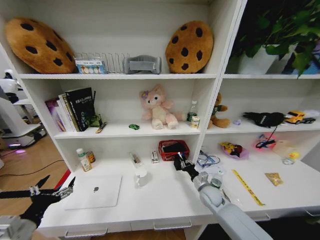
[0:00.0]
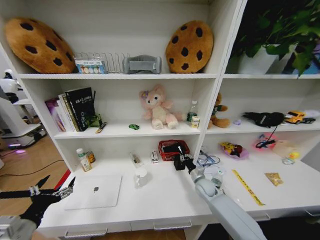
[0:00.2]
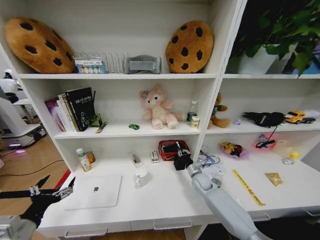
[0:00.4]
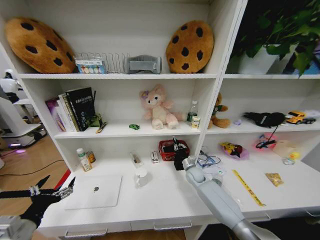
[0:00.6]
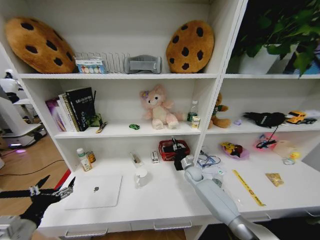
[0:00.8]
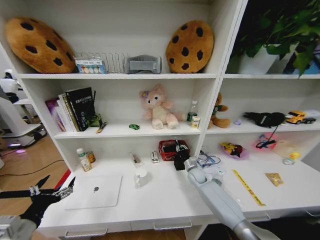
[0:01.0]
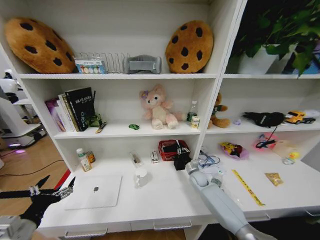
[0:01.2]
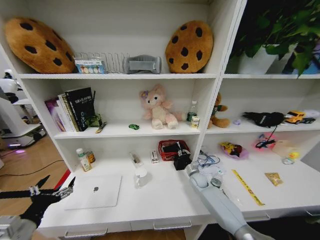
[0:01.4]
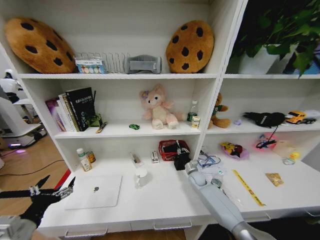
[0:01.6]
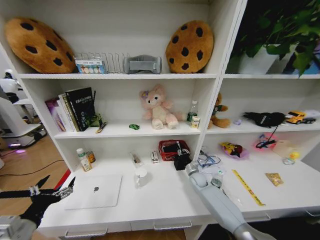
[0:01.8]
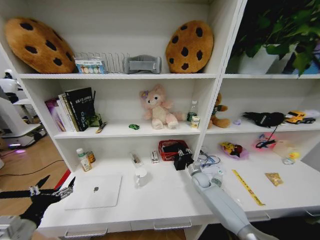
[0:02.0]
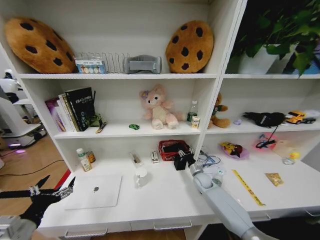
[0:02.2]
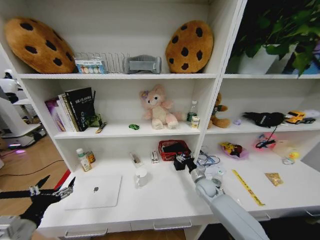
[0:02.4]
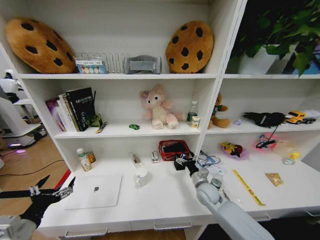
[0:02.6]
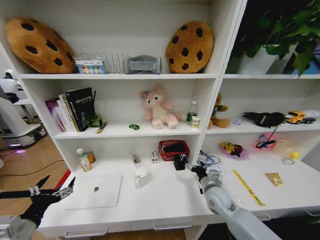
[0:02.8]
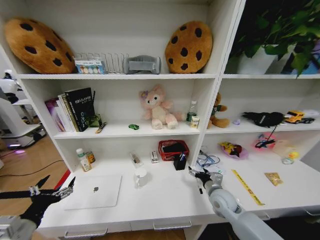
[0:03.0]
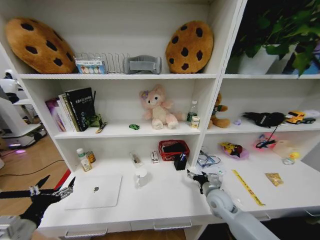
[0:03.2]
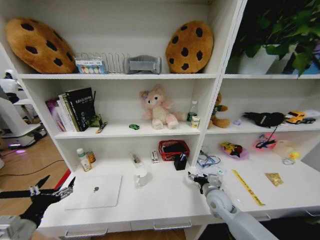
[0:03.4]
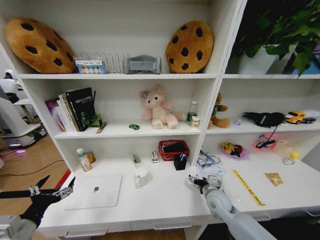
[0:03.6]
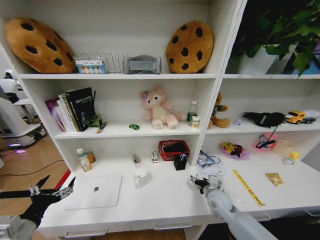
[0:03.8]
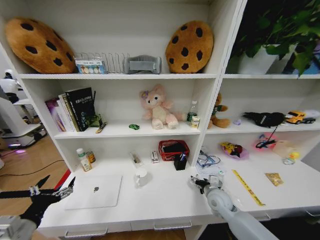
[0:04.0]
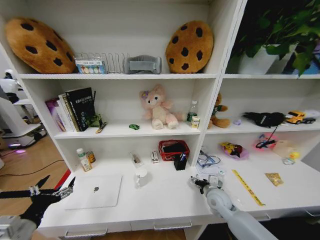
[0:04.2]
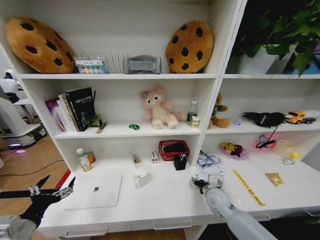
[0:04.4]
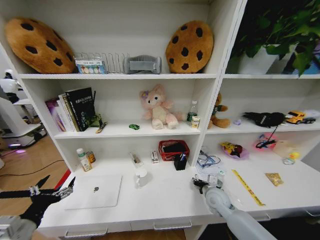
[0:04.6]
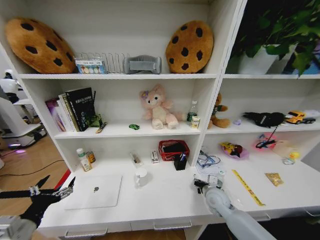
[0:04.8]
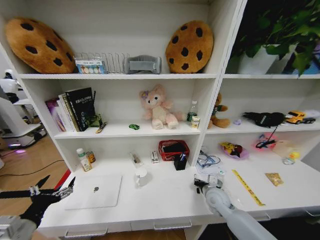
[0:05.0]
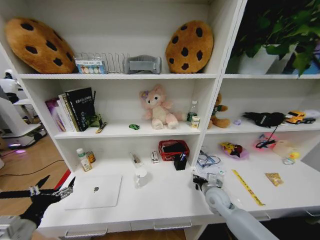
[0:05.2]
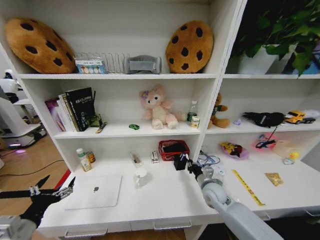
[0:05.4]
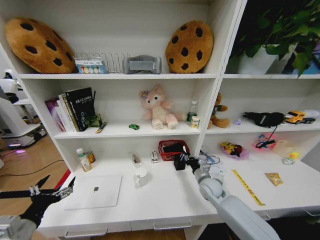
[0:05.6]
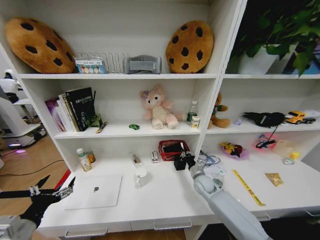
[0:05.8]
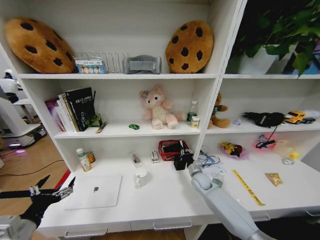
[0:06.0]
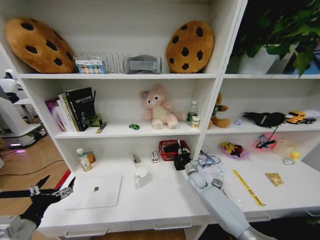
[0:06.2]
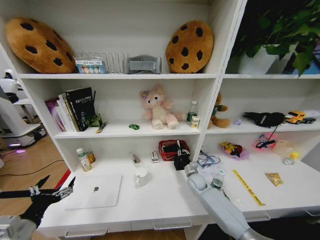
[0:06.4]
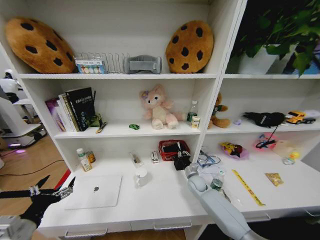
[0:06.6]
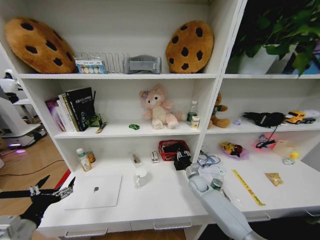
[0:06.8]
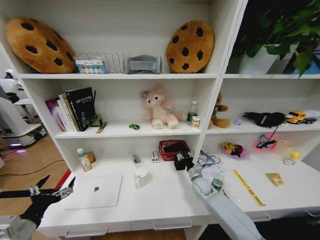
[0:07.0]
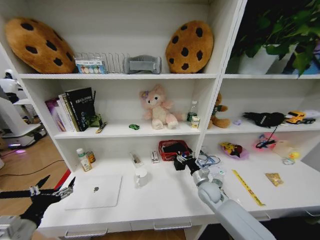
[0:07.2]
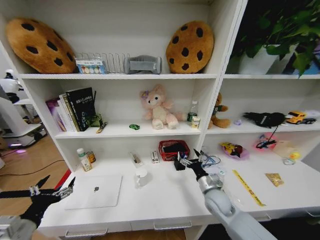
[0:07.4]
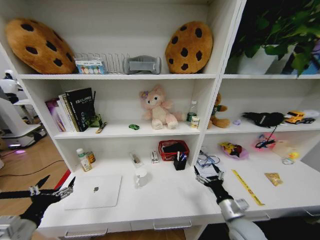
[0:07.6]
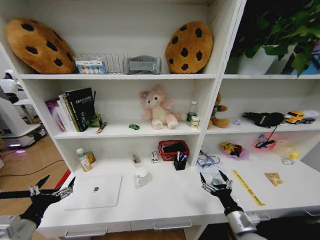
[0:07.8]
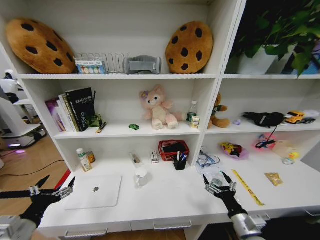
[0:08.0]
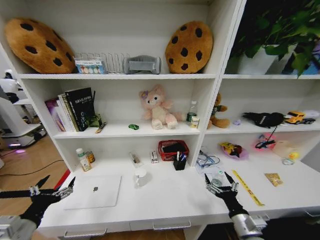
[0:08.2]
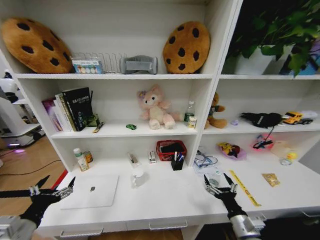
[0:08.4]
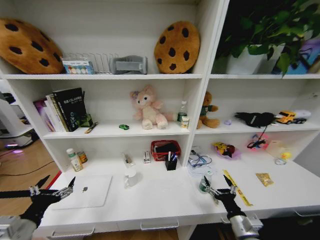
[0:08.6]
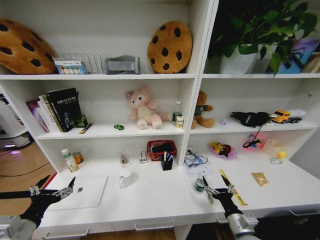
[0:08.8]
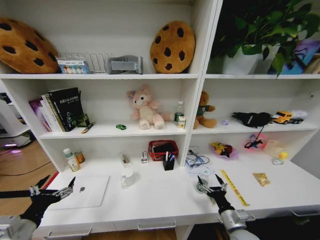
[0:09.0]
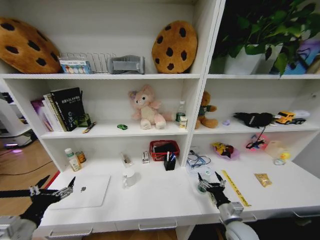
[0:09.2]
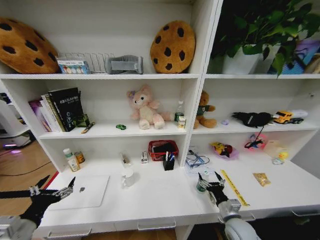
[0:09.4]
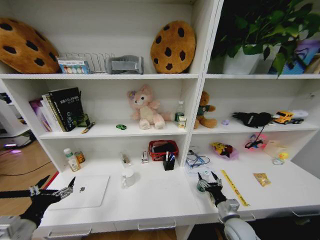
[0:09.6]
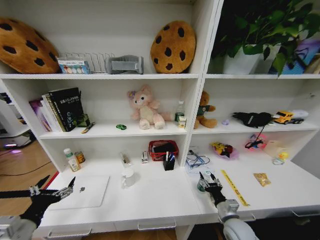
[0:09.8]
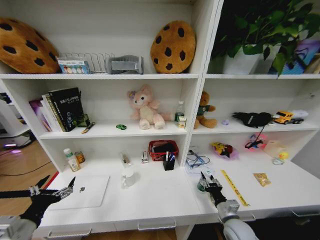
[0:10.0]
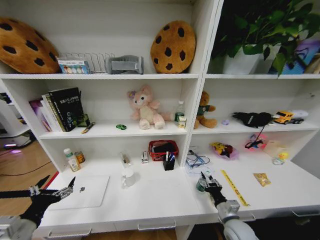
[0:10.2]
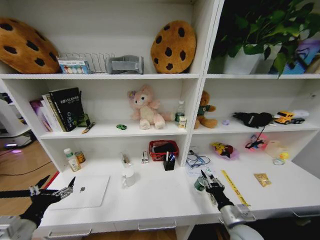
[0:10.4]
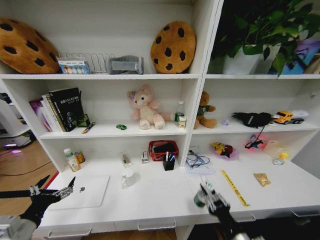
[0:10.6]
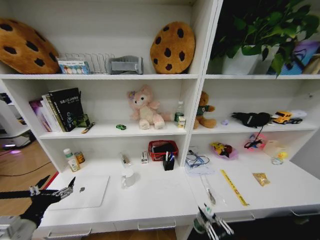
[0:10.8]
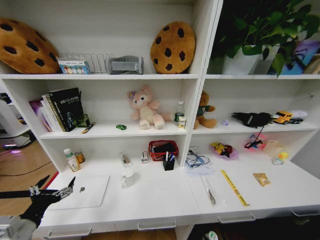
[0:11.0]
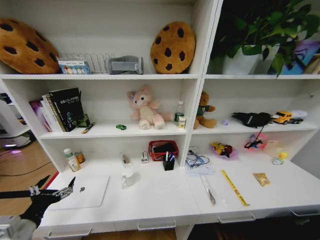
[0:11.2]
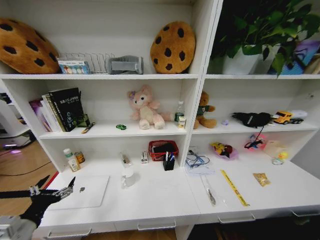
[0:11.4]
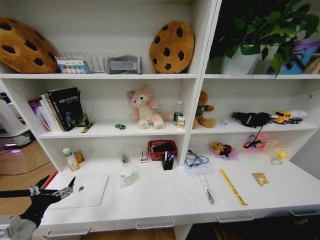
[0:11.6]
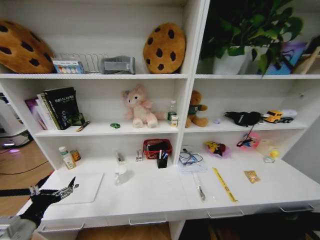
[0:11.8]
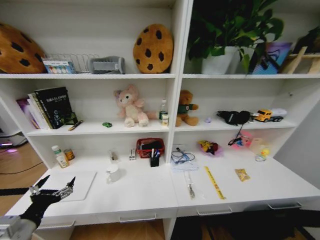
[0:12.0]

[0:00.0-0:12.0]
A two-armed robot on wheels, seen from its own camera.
Task of the whole recording: Organize the objects on the table.
0:00.0 to 0:01.6: The right gripper moves forward, approximately 10 cm.
0:01.6 to 0:03.0: The right gripper heads backward and upward, covering approximately 15 cm, and opens its fingers.
0:03.0 to 0:04.4: The grippers stay close to where they were, moving slightly.
0:04.4 to 0:06.0: The right gripper moves forward, about 10 cm, and closes.
0:06.0 to 0:07.6: The right gripper heads backward, covering about 20 cm, and opens.
0:07.6 to 0:09.0: The right gripper heads backward, covering approximately 5 cm.
0:09.0 to 0:10.4: The right gripper closes its fingers.
0:10.4 to 0:12.0: The right gripper heads backward and downward, covering roughly 30 cm.

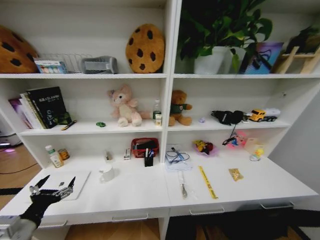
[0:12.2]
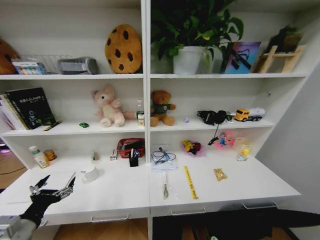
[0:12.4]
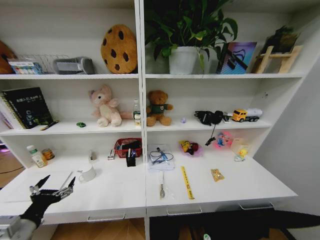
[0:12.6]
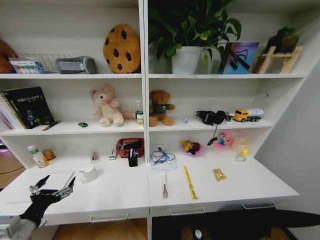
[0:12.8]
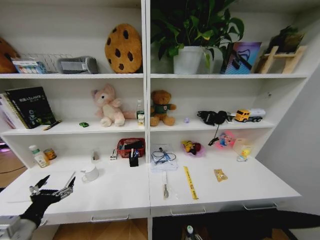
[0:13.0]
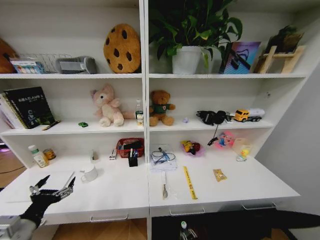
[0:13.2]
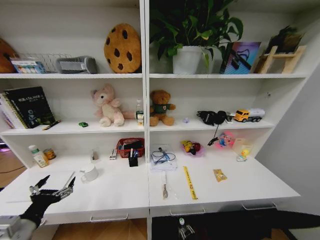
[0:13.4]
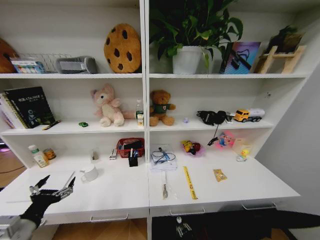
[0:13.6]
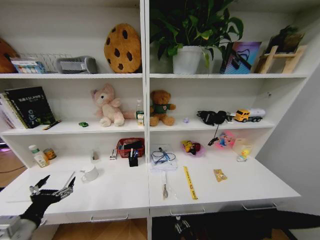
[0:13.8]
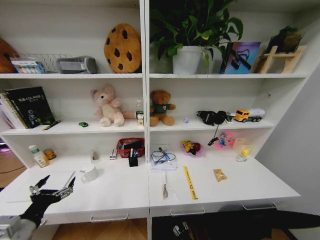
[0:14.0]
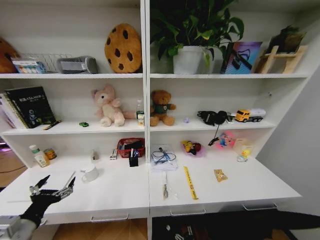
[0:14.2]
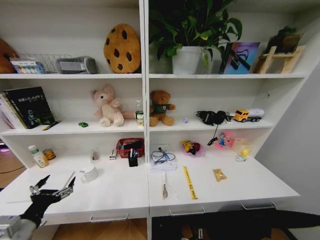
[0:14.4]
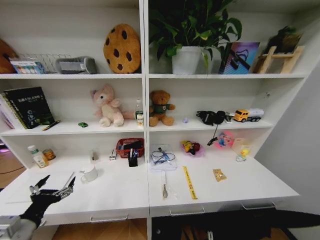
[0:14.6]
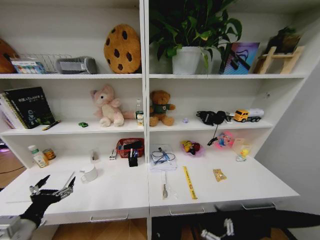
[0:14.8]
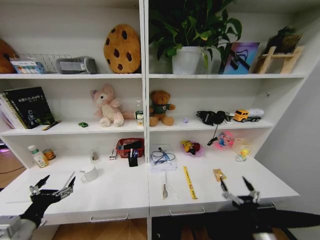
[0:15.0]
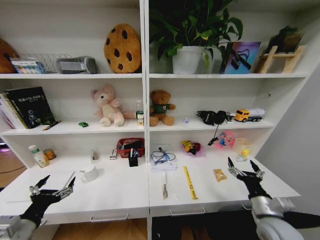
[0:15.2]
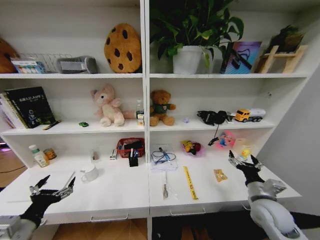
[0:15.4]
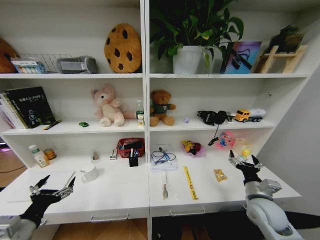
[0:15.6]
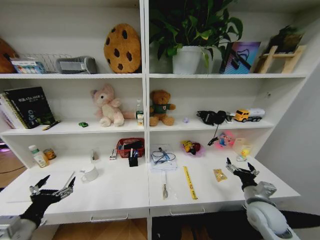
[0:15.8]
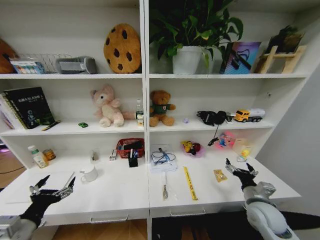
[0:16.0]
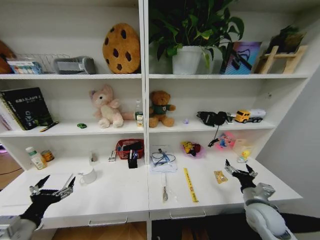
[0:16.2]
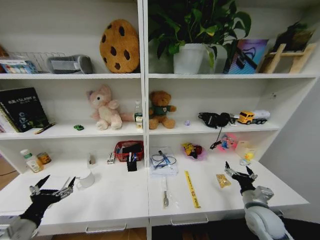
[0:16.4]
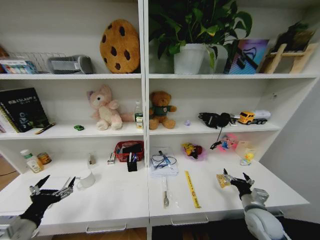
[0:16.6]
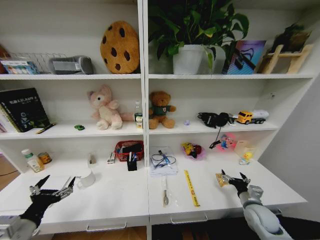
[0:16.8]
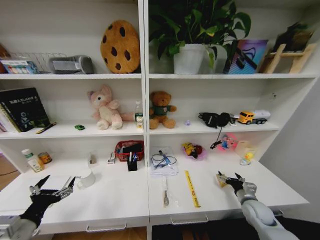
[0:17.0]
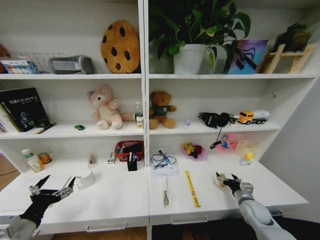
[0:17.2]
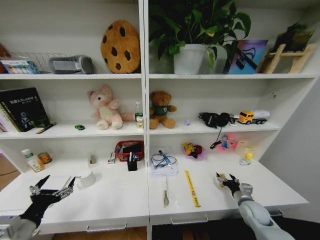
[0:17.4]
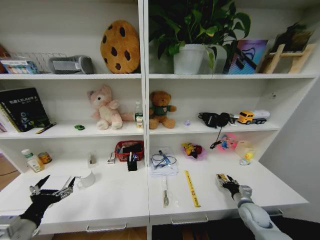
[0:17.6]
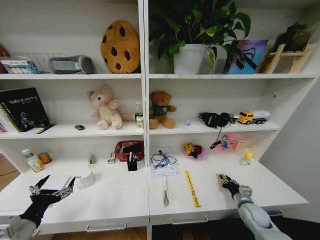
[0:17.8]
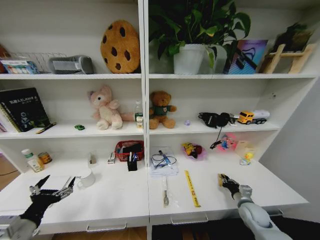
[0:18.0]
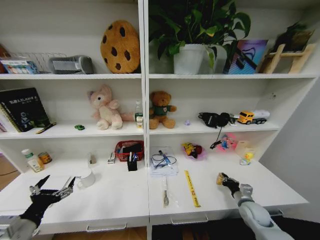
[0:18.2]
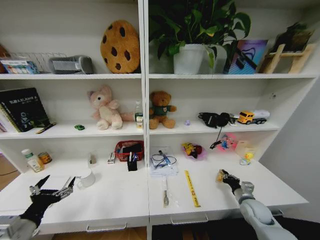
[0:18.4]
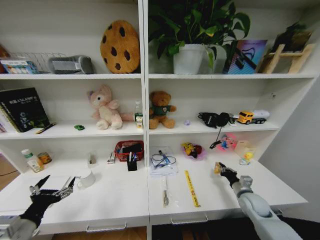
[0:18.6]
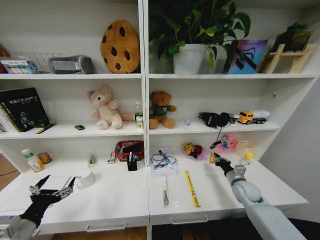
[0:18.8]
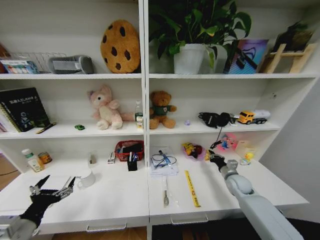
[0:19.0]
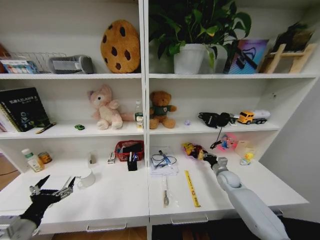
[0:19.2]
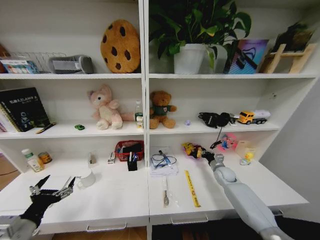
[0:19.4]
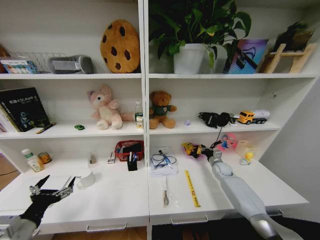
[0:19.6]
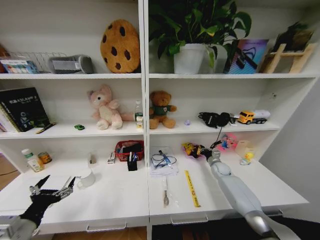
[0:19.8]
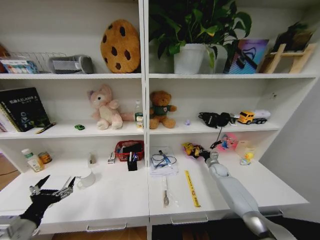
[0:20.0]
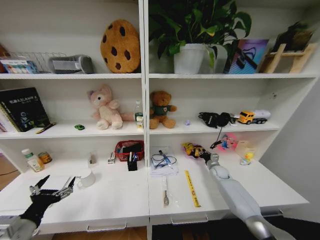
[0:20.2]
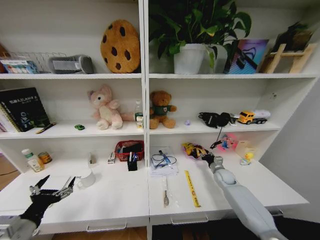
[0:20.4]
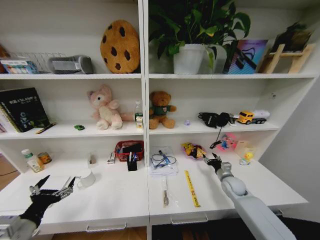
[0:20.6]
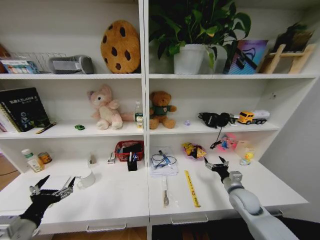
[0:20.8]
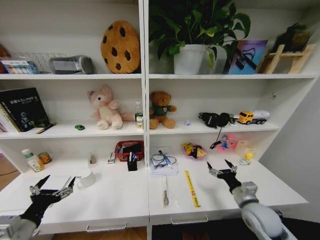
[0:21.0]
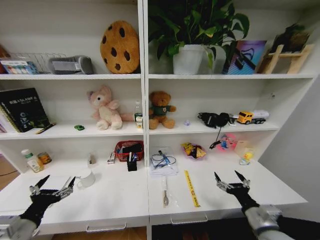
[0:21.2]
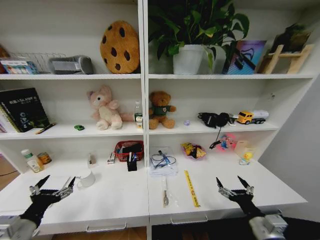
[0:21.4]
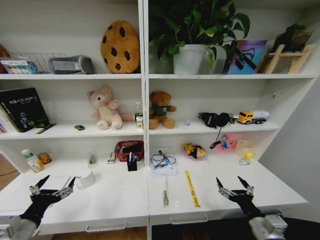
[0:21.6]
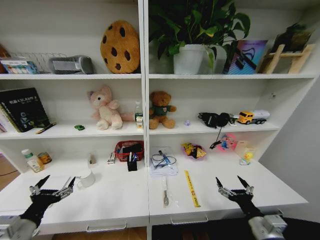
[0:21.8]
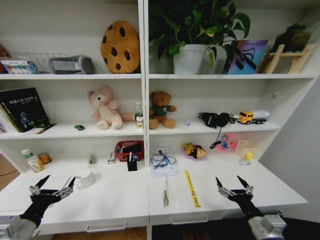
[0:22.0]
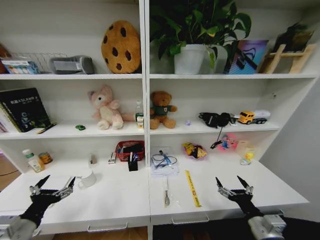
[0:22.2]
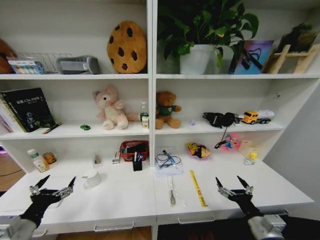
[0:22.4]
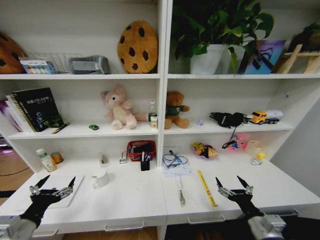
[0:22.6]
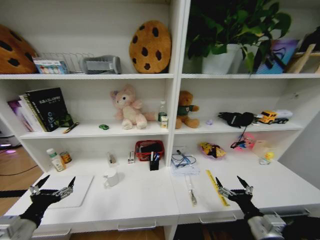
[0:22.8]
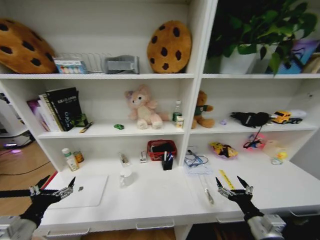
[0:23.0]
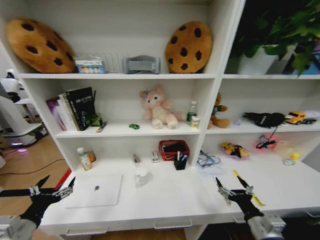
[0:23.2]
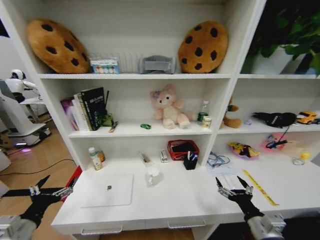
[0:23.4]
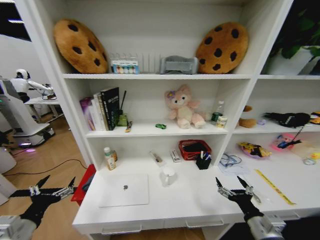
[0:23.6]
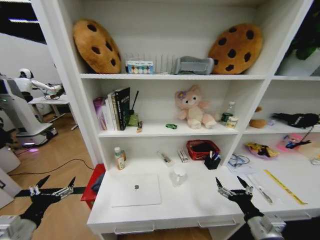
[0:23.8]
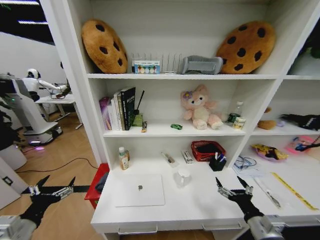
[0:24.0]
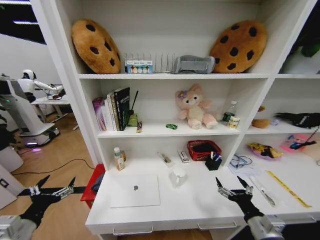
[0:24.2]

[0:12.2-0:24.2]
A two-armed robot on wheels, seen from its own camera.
Task of the whole recording: Organize the objects on the table.
0:12.2 to 0:13.8: The right gripper shifts about 30 cm downward, forward and to the left.
0:13.8 to 0:15.2: The right gripper moves upward, about 40 cm, and opens up.
0:15.2 to 0:16.6: The right gripper heads forward and downward, covering approximately 10 cm.
0:16.6 to 0:18.2: The right gripper goes about 5 cm downward, and closes up.
0:18.2 to 0:19.8: The right gripper moves forward, approximately 20 cm.
0:19.8 to 0:21.2: The right gripper travels backward by about 35 cm, and opens.
